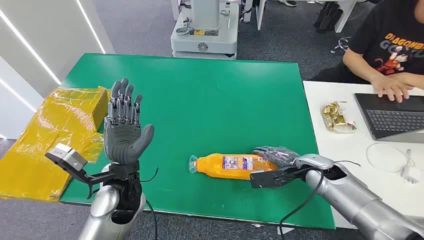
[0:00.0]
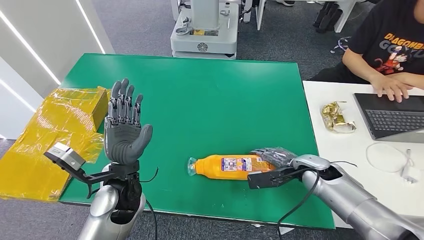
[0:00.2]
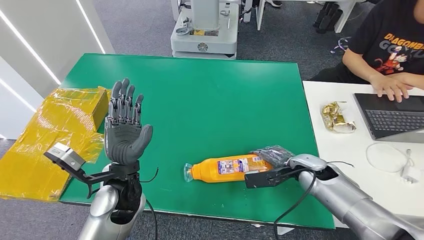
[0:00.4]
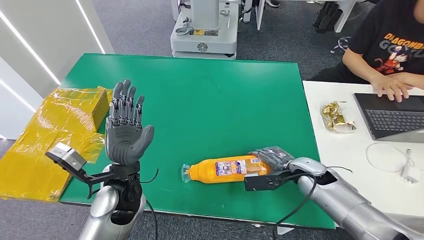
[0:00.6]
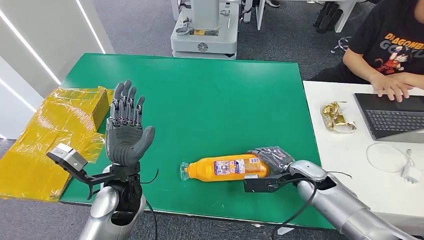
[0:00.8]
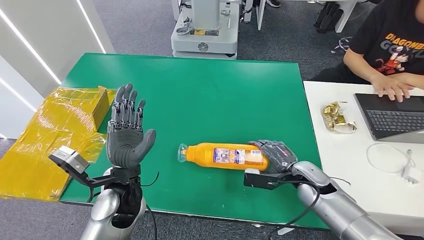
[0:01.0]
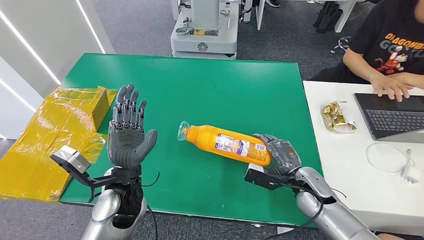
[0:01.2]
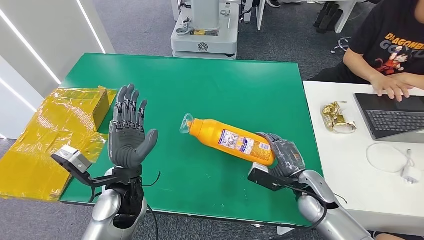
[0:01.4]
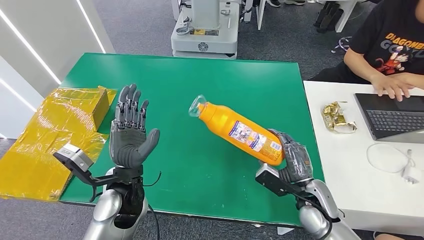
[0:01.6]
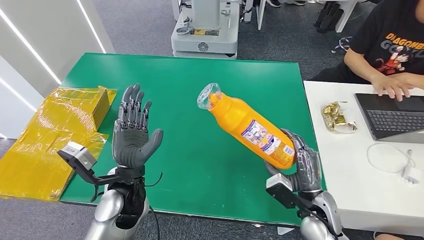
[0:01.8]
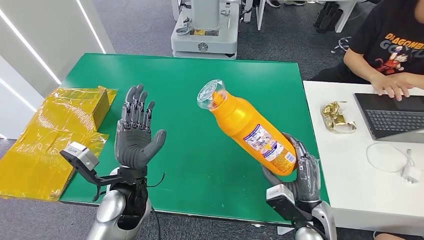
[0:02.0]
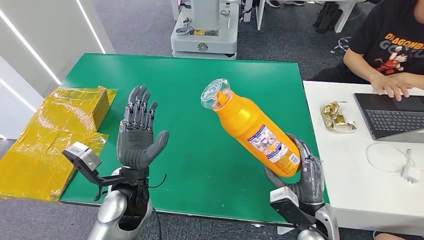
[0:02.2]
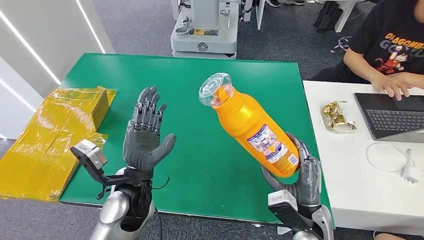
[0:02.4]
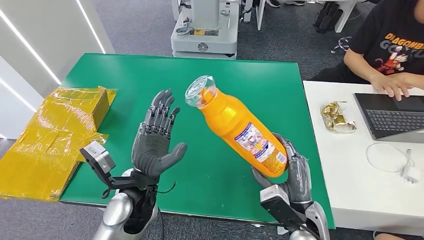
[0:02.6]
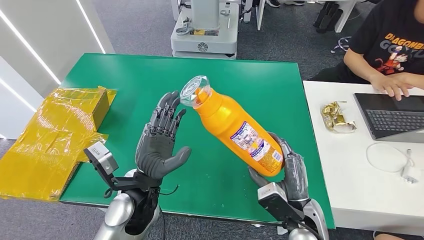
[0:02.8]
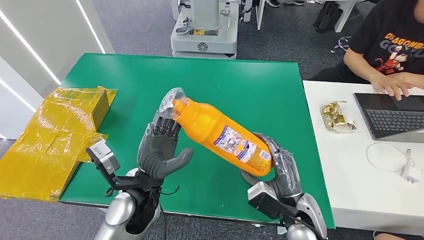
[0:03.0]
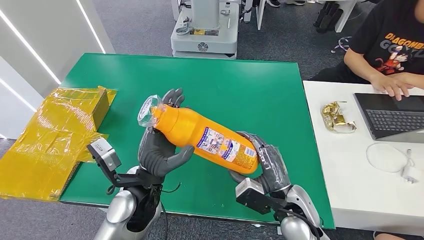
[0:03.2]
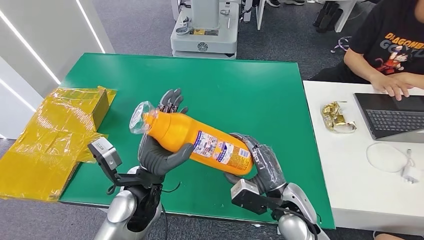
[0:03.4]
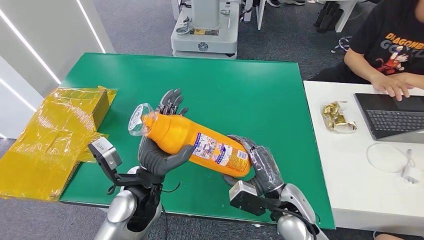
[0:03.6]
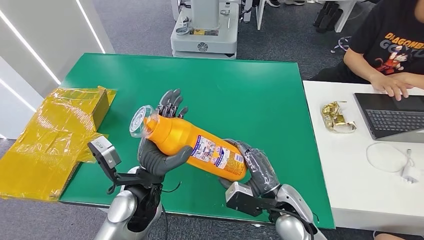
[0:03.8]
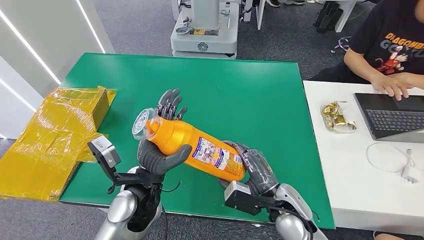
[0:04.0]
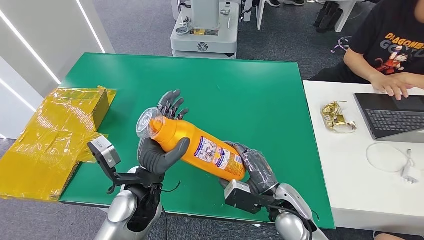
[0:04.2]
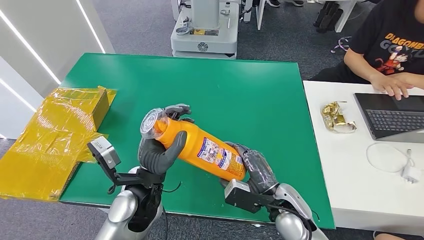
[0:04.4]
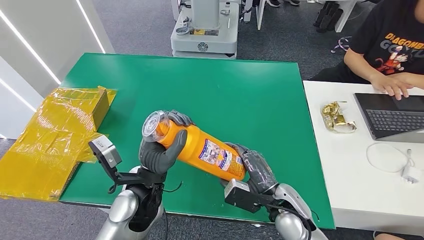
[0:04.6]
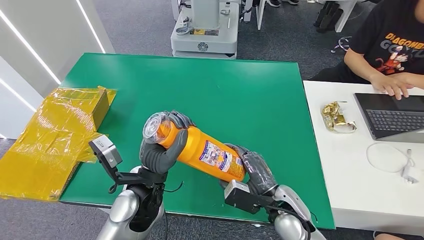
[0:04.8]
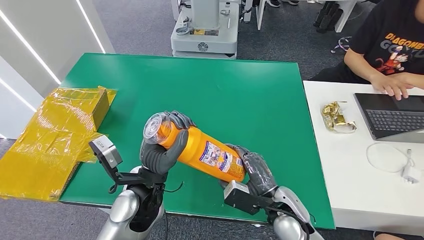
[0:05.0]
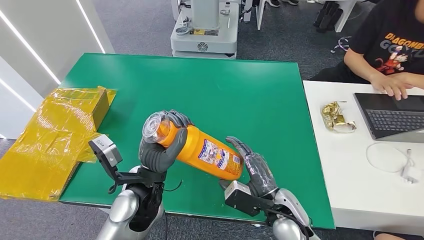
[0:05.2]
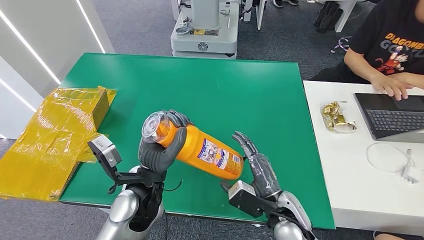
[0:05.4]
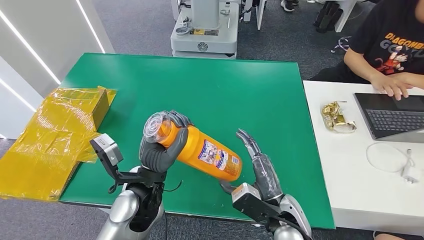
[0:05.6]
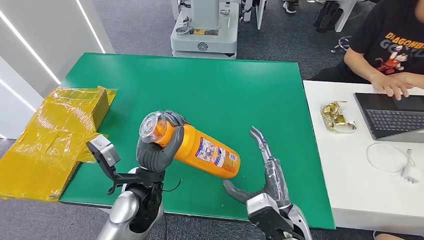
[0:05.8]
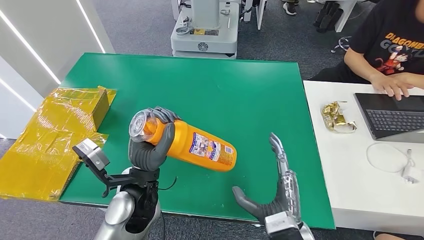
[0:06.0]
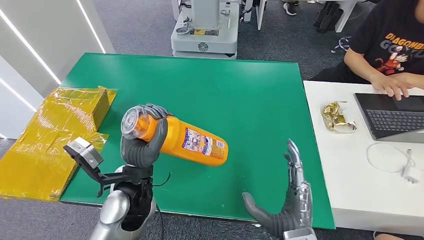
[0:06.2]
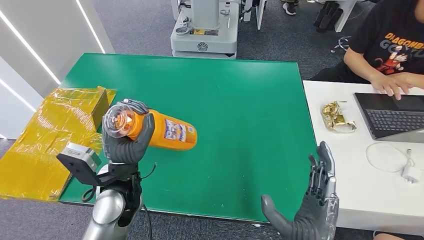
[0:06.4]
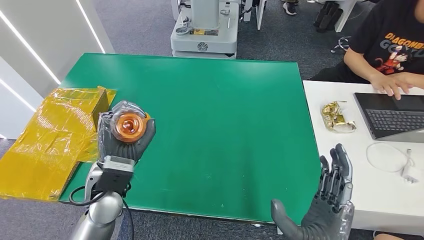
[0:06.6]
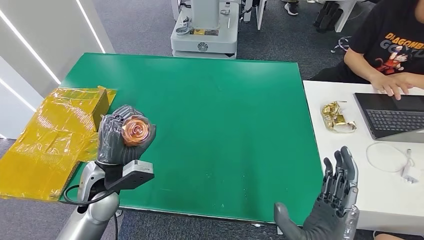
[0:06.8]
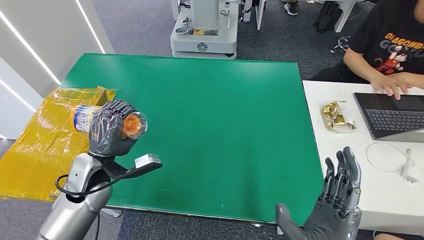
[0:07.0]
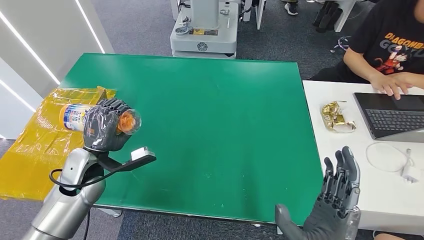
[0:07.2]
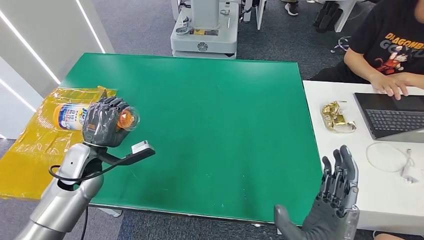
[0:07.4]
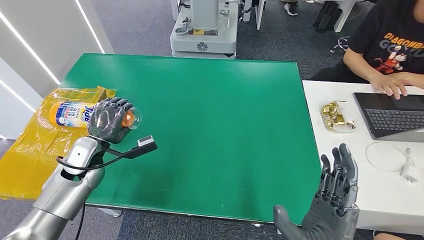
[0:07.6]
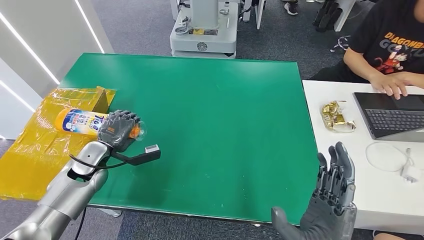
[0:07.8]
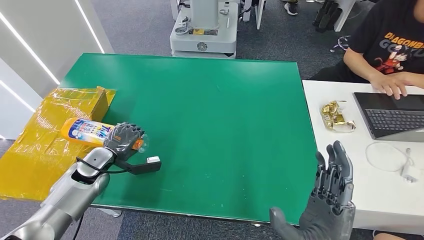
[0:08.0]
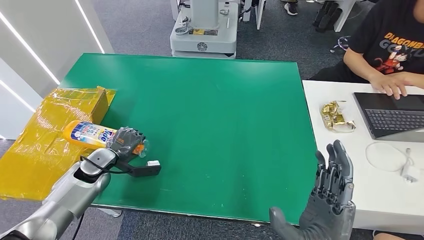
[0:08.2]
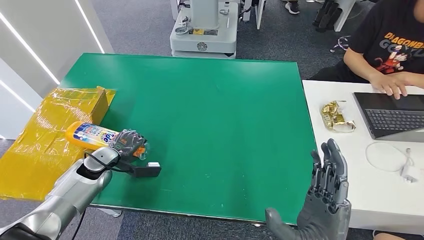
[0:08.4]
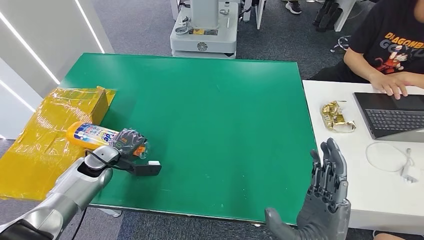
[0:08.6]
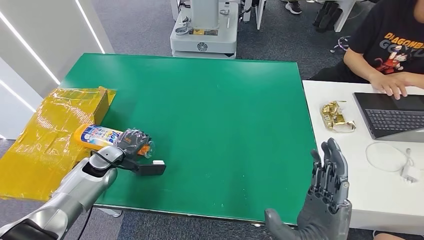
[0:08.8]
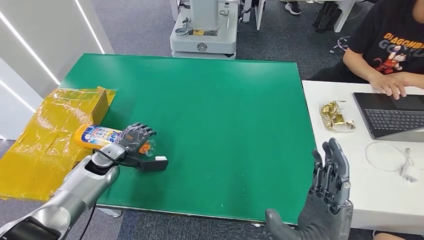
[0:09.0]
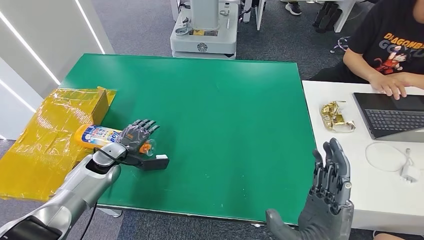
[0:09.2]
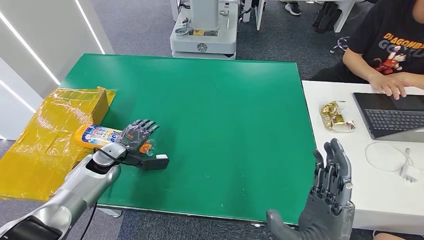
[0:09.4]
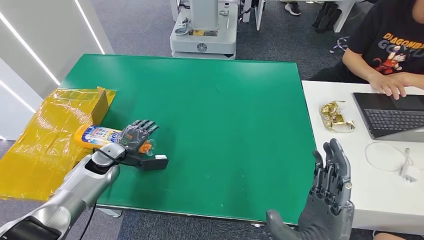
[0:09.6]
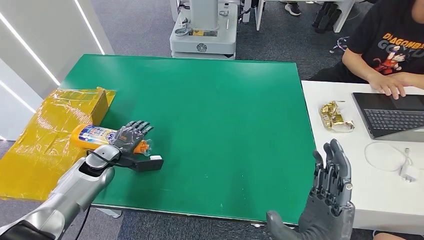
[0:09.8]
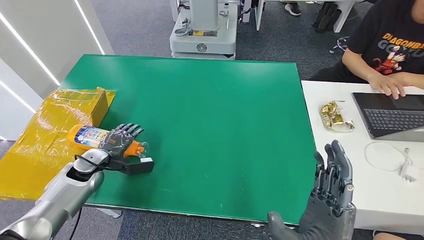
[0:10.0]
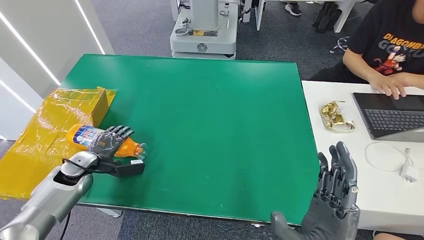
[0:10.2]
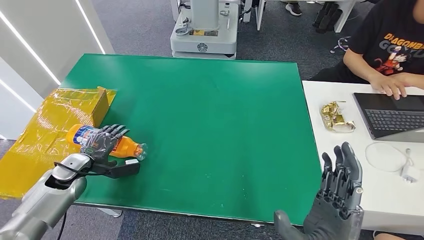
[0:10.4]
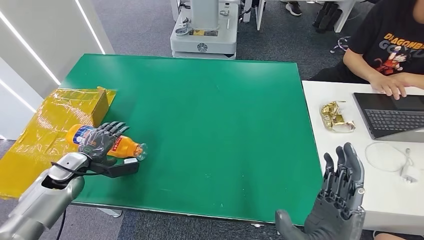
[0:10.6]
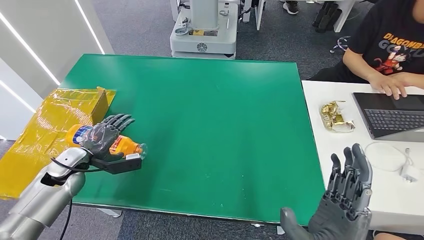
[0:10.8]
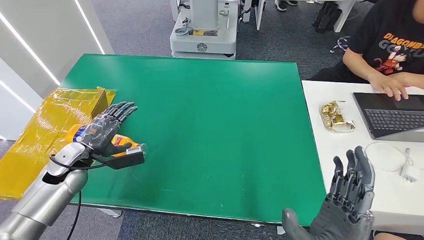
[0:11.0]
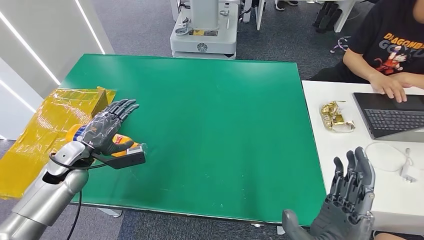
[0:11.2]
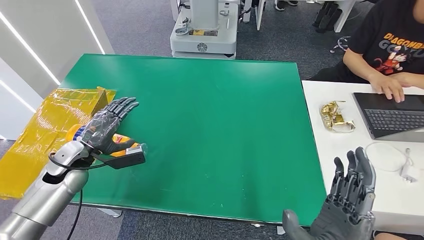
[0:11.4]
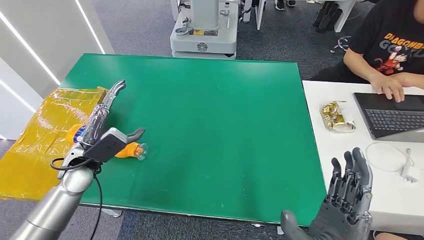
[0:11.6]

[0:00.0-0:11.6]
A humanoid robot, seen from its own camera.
Step, 0:00.0 to 0:03.6: Pick up the bottle from the table.
Step, 0:04.0 to 0:10.6: Turn the bottle to the front side.
0:01.4 to 0:02.8: The right hand goes roughly 10 cm backward and to the left.
0:04.4 to 0:05.8: The right hand heads backward, covering some 5 cm.
0:05.8 to 0:07.2: The left hand goes roughly 15 cm to the left. Meanwhile the right hand moves backward, approximately 10 cm.
0:07.2 to 0:08.8: The left hand shifts some 10 cm downward and forward.
0:08.8 to 0:10.2: The left hand heads to the left, covering about 5 cm.
0:10.2 to 0:11.6: The left hand is displaced upward and to the right by about 10 cm.

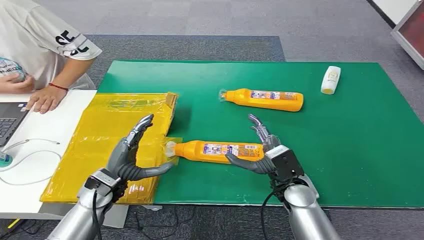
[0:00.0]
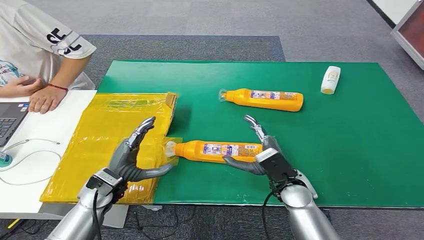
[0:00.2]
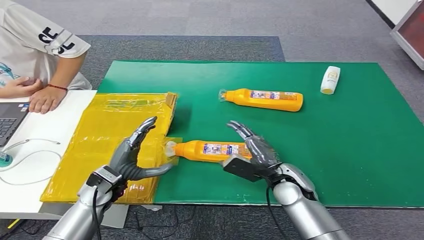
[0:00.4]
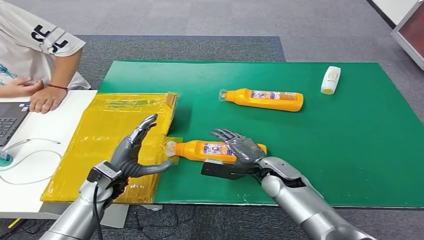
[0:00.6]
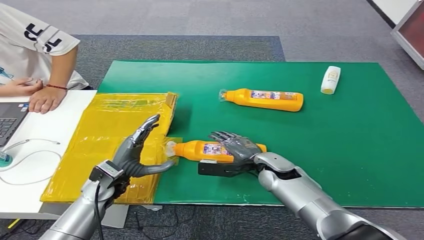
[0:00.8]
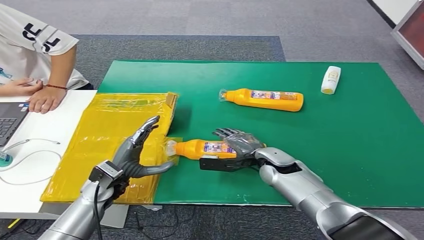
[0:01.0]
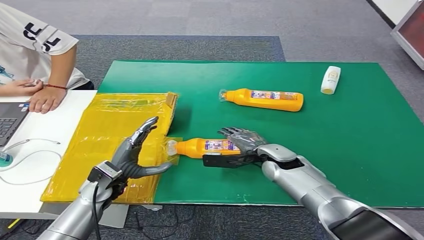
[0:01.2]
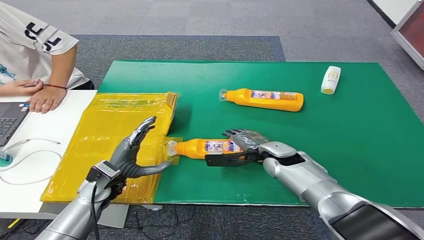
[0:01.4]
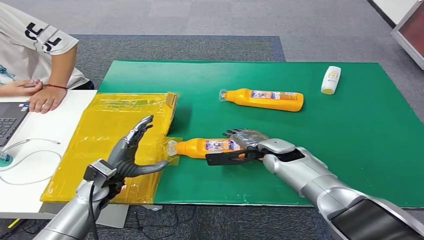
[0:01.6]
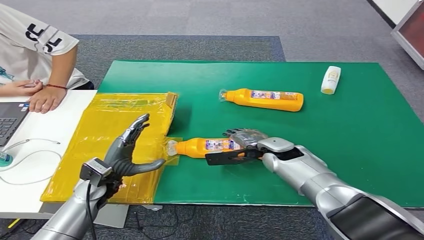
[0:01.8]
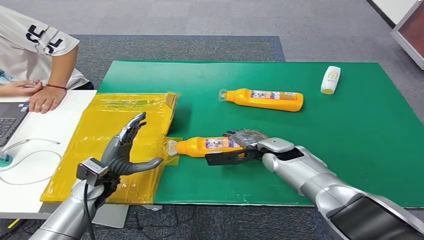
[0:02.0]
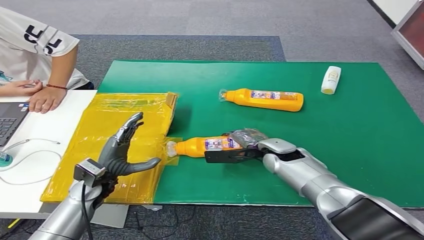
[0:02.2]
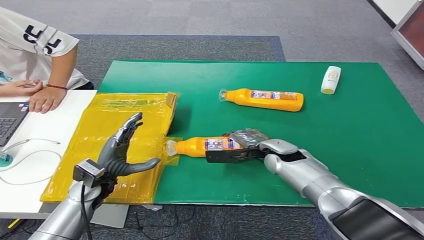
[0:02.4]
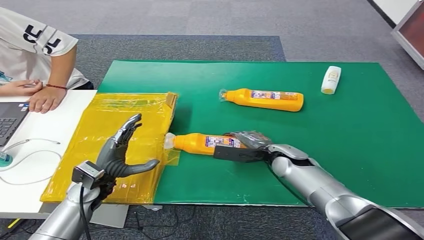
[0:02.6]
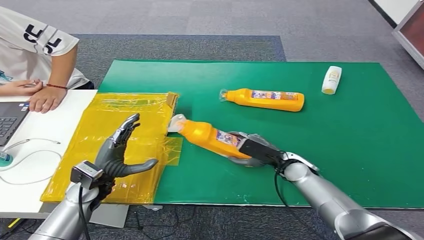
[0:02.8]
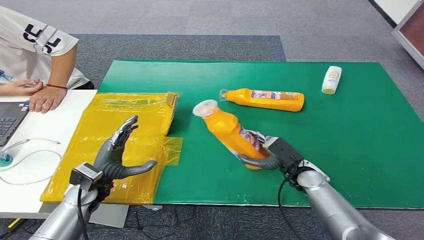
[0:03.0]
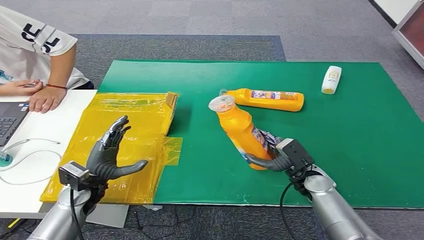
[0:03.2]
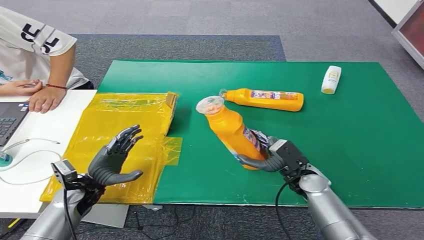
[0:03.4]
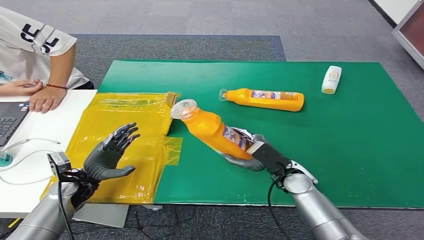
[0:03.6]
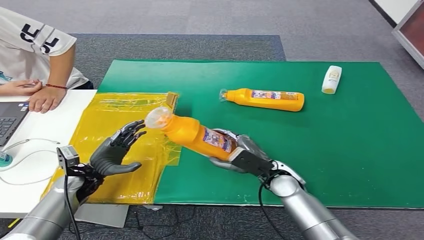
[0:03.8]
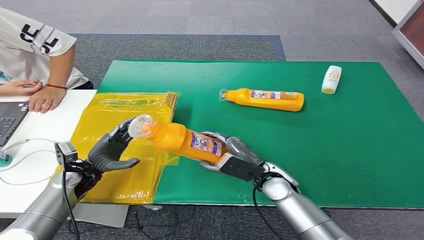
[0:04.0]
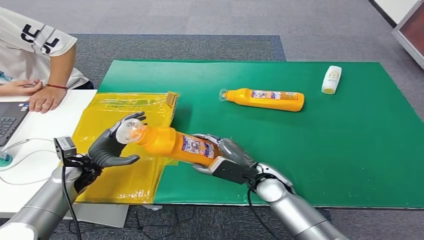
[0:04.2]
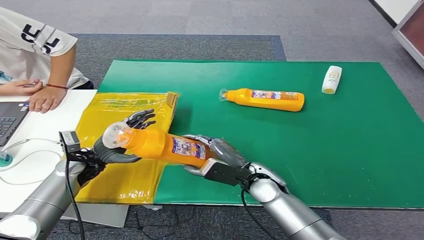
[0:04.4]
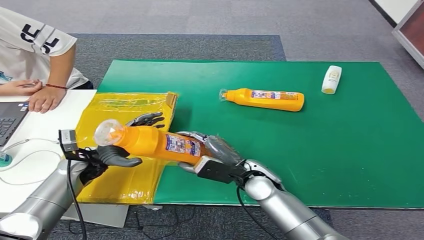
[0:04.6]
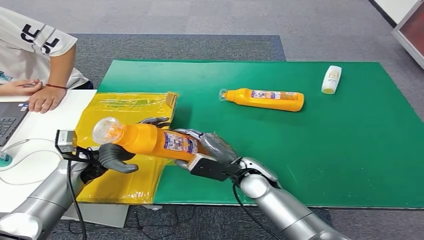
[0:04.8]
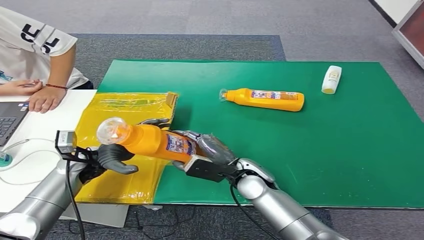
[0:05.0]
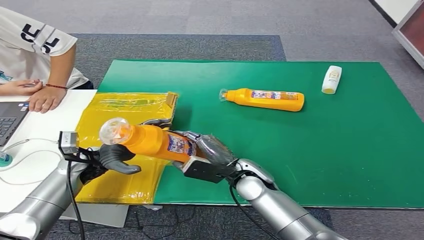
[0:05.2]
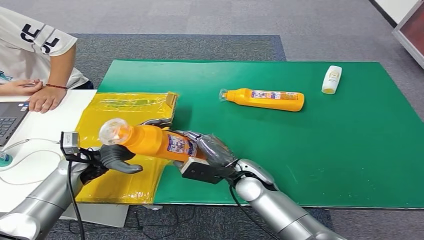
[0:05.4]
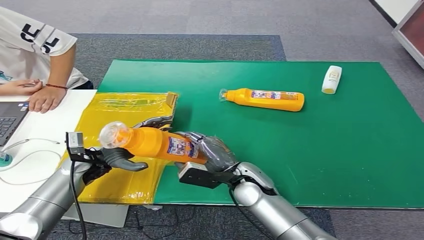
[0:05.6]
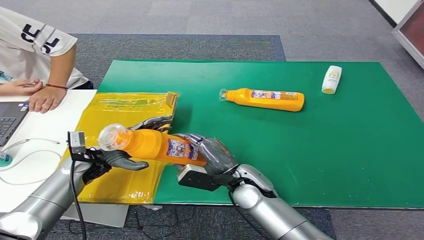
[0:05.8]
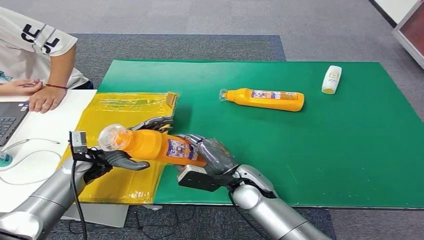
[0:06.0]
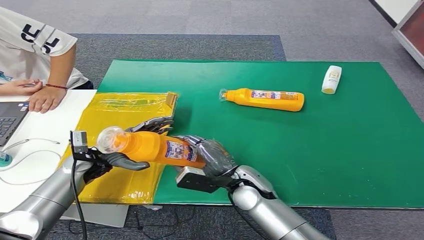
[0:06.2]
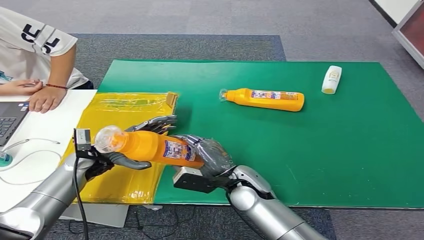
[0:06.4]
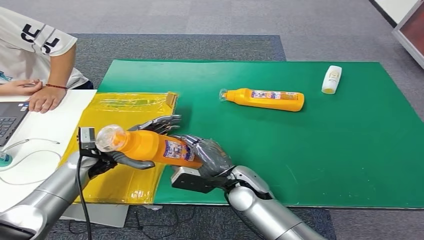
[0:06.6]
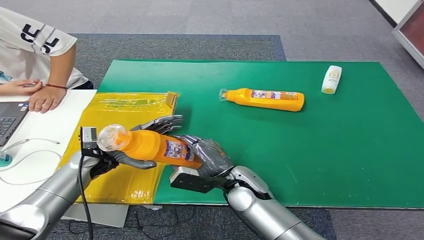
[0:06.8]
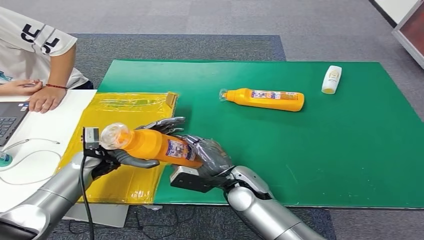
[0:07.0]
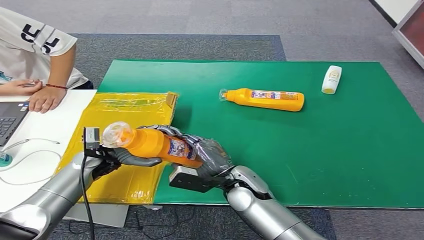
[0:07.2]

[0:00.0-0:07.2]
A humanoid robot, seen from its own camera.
Step, 0:00.0 to 0:03.2: Pick up the bottle from the table.
0:01.4 to 0:02.8: The right hand shifts by approximately 5 cm.
0:05.8 to 0:07.2: The hands make only small movements.
